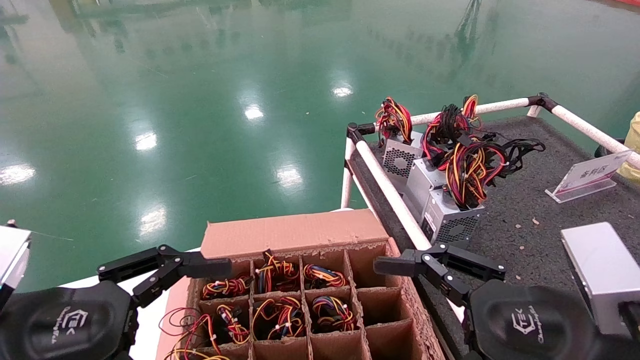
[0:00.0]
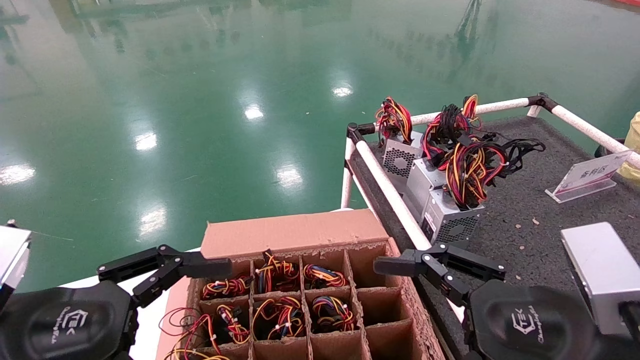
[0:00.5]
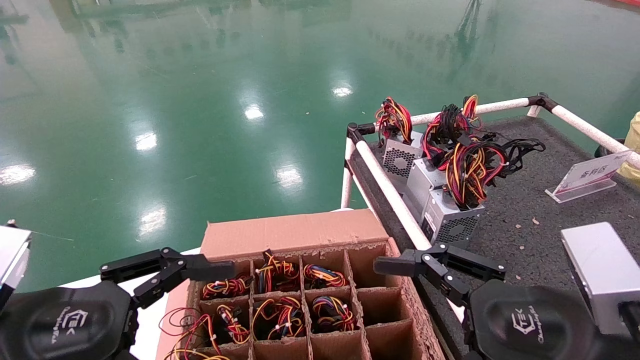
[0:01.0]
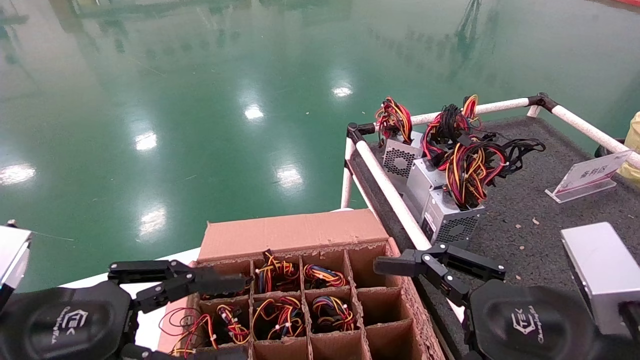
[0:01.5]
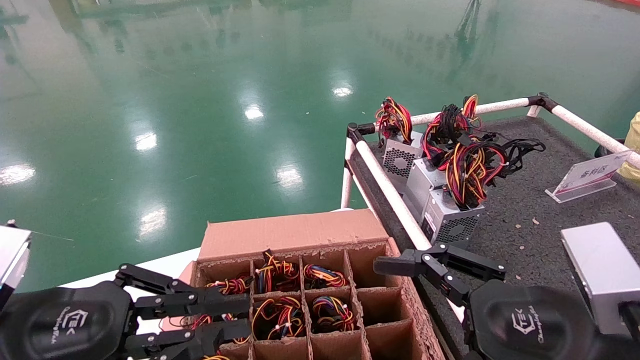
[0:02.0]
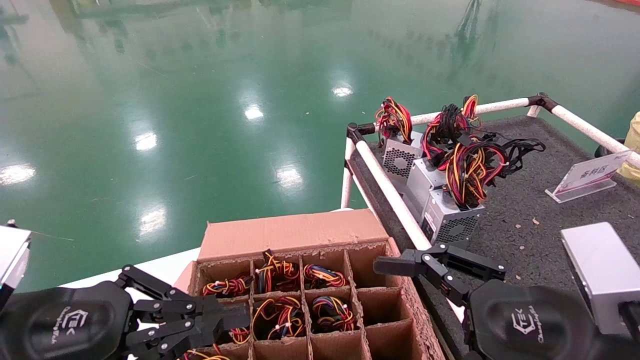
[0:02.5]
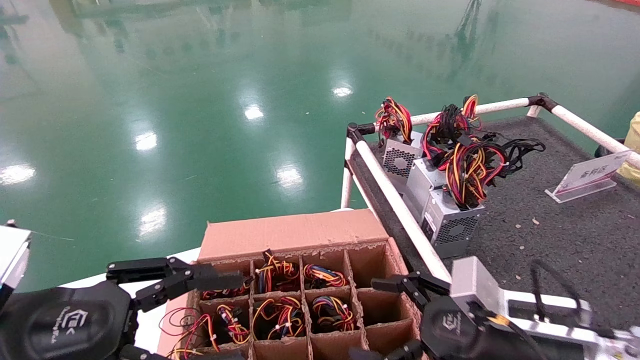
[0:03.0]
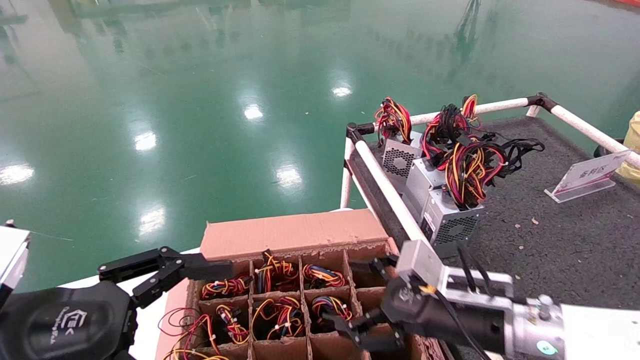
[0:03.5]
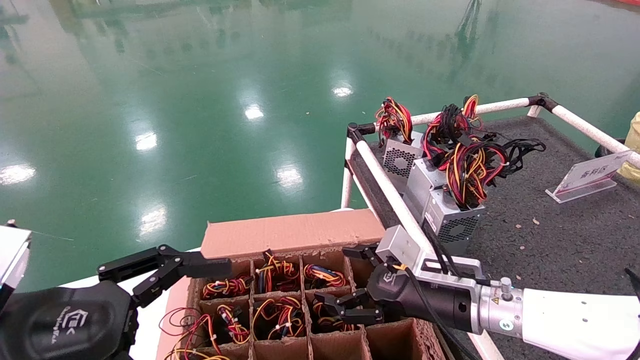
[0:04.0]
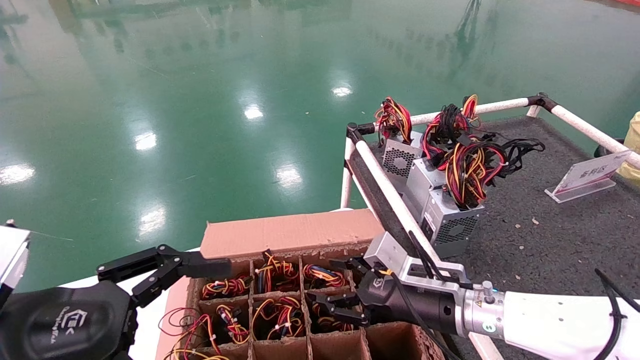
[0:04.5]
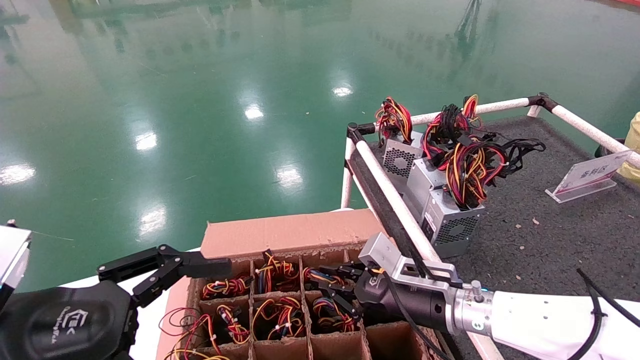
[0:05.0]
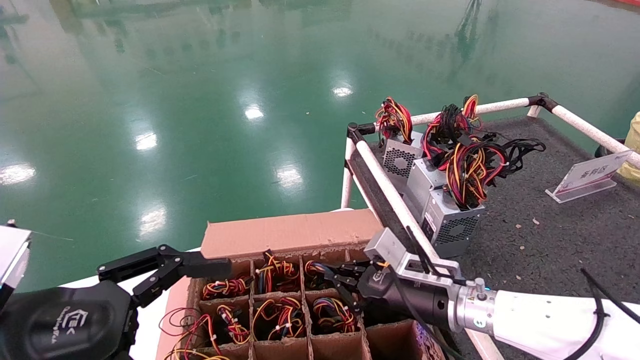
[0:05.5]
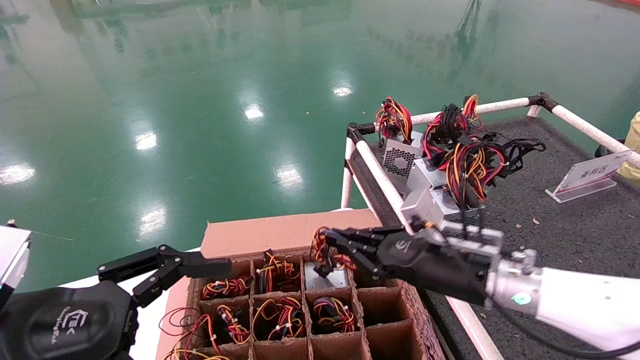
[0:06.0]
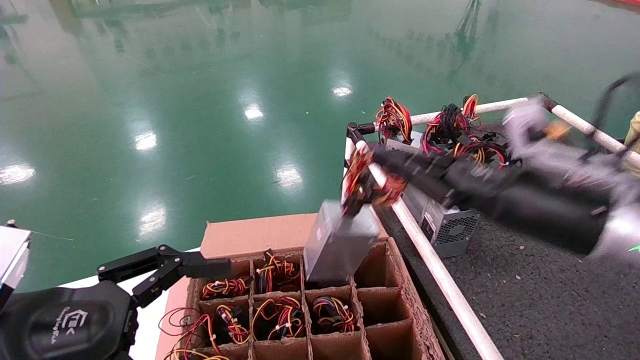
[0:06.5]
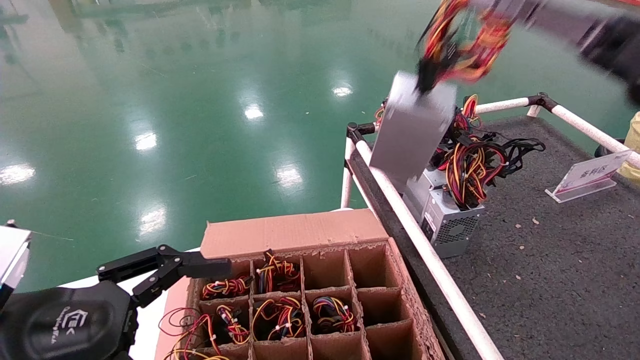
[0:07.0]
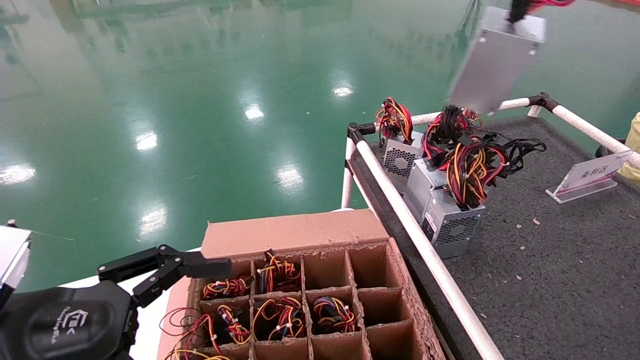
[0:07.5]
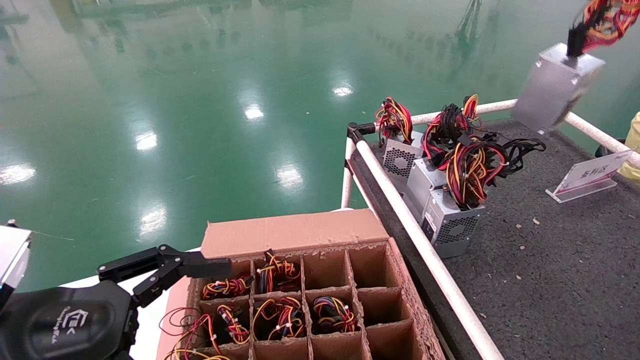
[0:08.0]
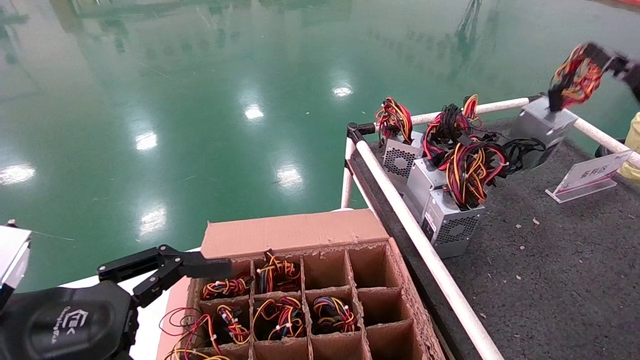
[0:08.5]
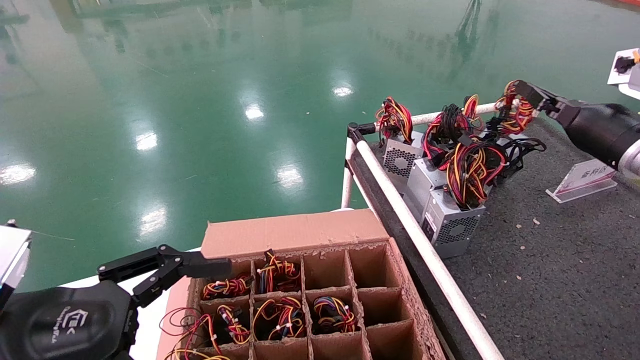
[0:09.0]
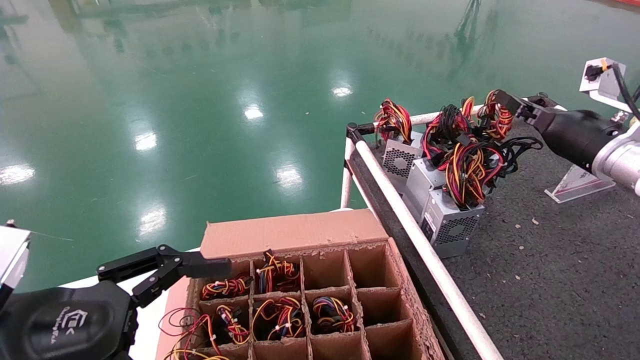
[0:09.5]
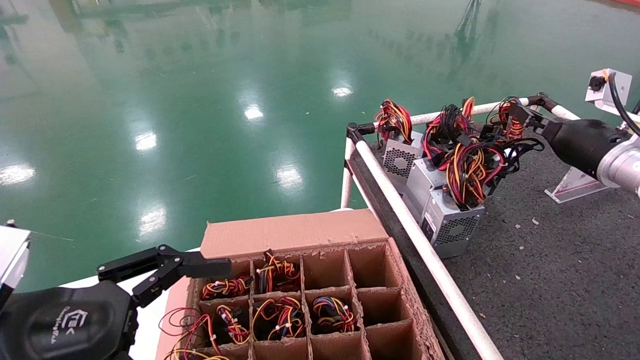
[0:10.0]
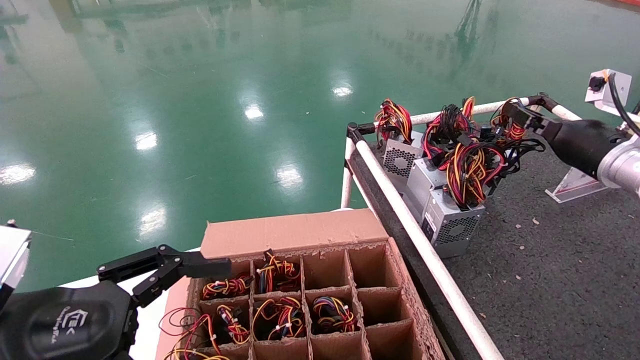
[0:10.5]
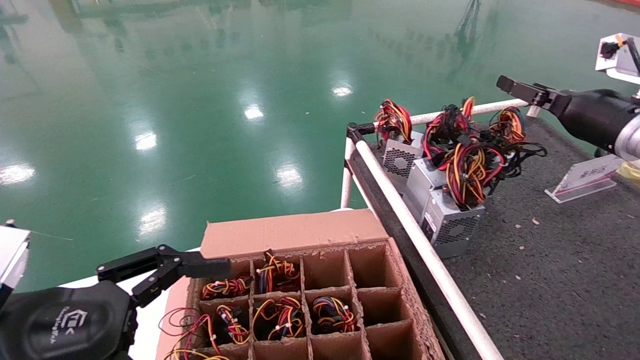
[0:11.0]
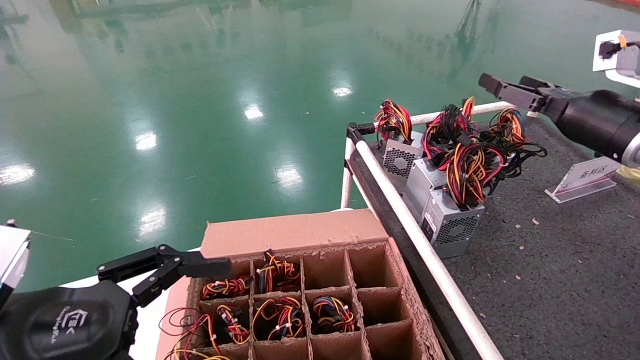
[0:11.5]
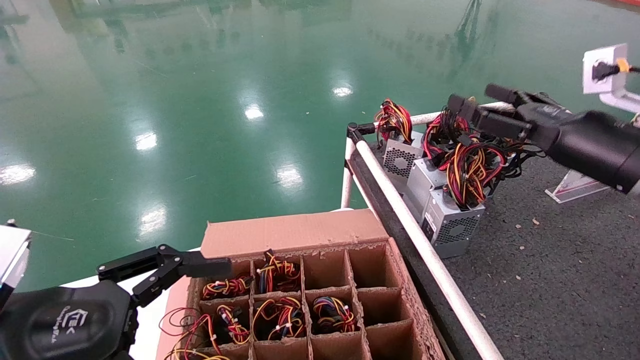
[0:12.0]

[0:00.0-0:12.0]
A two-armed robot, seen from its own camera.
Step, 0:01.5 to 0:06.0: Grab and lift the power supply from the large box.
Step, 0:06.5 to 0:11.0: Place the power supply on the operating table.
0:00.0 to 0:02.0: The left gripper closes up.
0:02.0 to 0:04.0: The right gripper is displaced forward and downward by some 15 cm; the left gripper opens its fingers.
0:04.0 to 0:06.0: The left gripper opens; the right gripper heads forward and to the left, covering some 10 cm, and closes its fingers.
0:06.0 to 0:08.0: The right gripper goes some 40 cm upward, to the right and backward.
0:08.0 to 0:10.0: The right gripper shifts about 20 cm forward and downward.
0:10.0 to 0:12.0: The right gripper opens up.

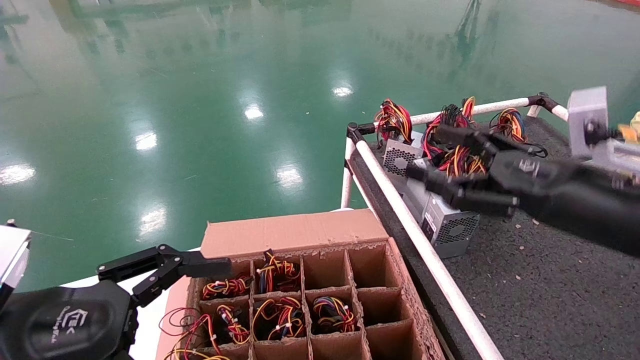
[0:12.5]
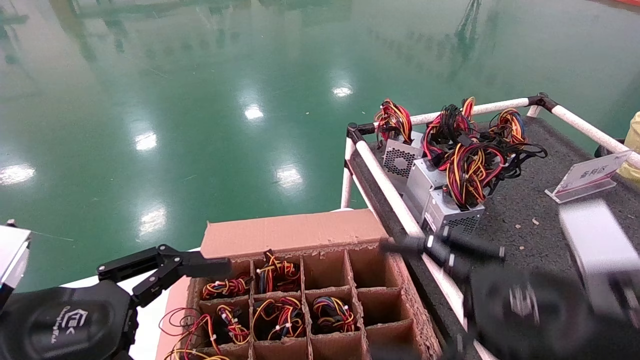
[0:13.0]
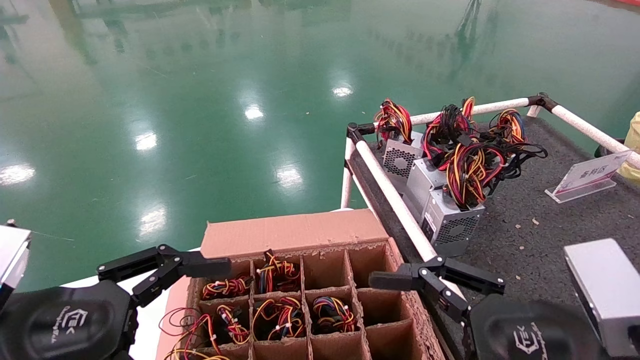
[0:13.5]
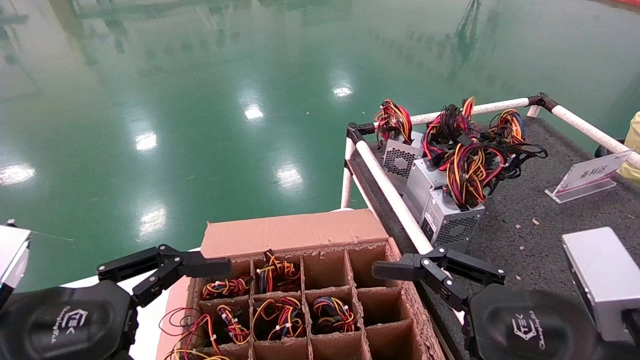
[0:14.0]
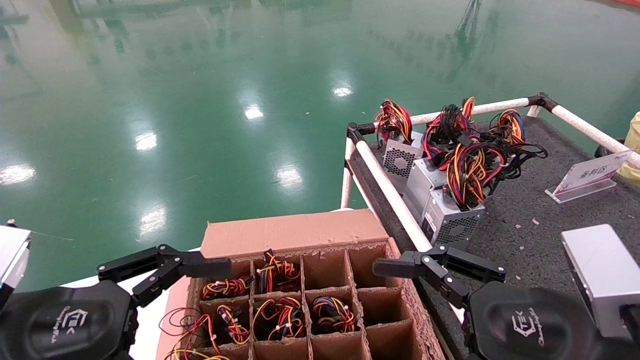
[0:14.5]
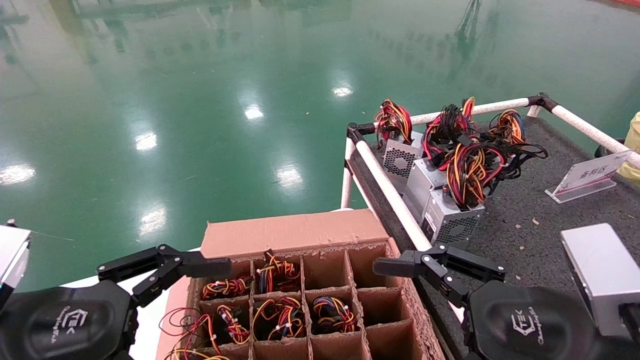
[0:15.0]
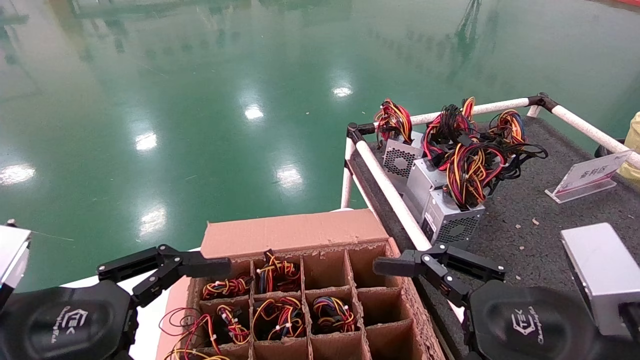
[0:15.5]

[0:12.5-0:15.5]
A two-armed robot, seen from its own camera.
0:12.5 to 0:14.0: The right gripper travels backward, downward and to the left by some 25 cm.
0:14.0 to 0:15.5: Both grippers stay about where they are.
